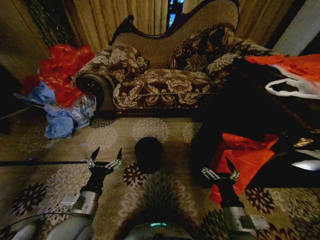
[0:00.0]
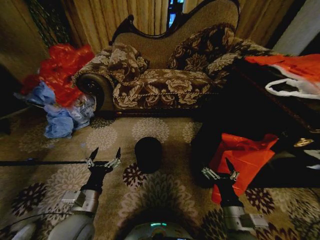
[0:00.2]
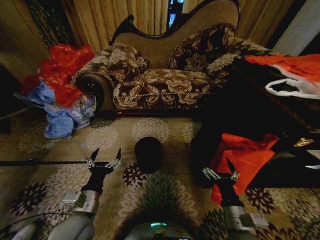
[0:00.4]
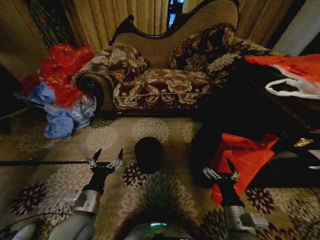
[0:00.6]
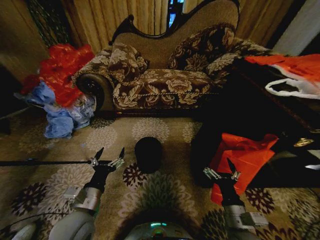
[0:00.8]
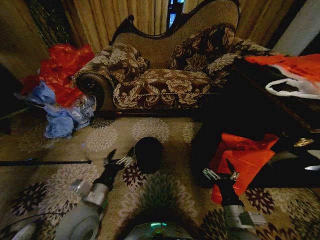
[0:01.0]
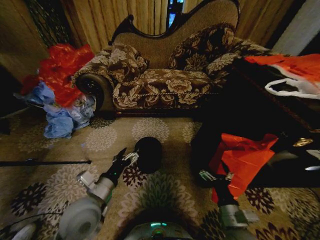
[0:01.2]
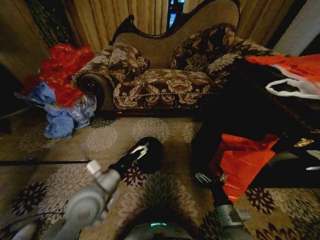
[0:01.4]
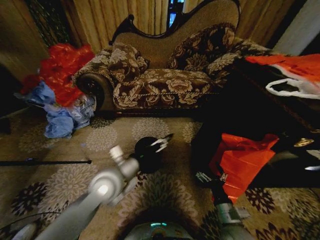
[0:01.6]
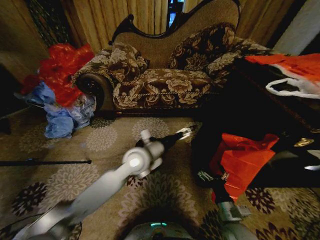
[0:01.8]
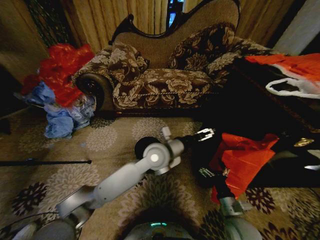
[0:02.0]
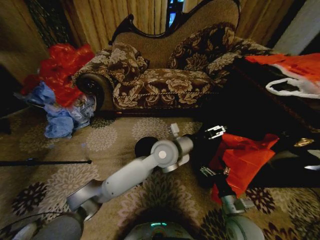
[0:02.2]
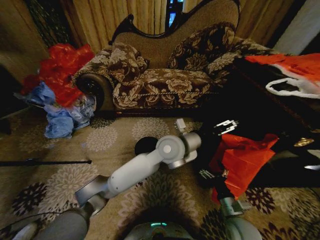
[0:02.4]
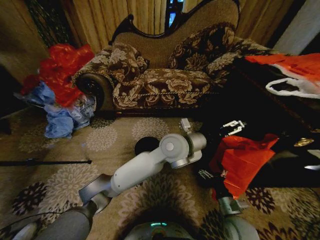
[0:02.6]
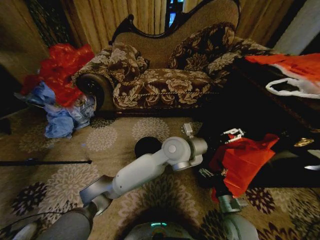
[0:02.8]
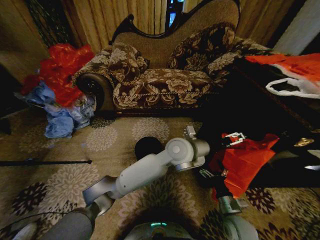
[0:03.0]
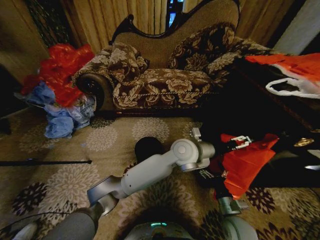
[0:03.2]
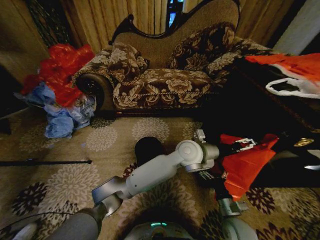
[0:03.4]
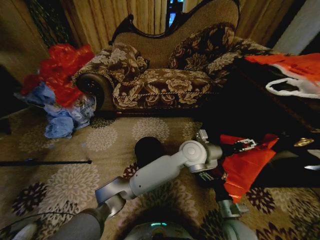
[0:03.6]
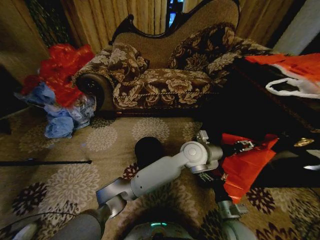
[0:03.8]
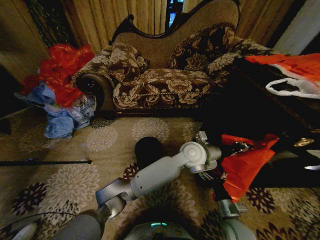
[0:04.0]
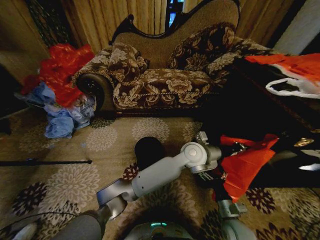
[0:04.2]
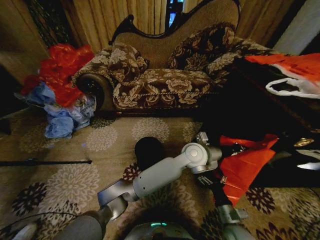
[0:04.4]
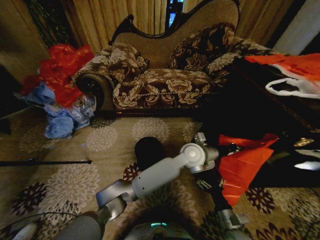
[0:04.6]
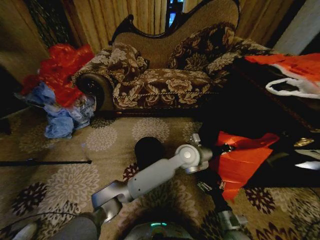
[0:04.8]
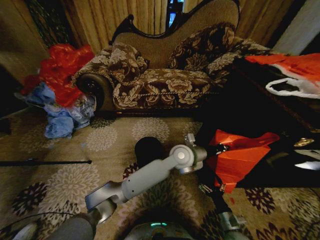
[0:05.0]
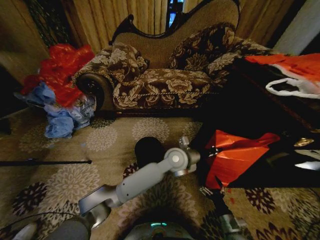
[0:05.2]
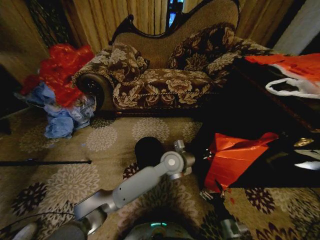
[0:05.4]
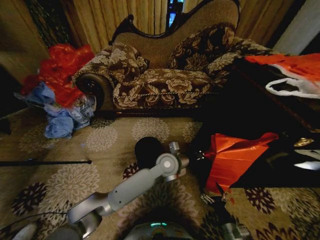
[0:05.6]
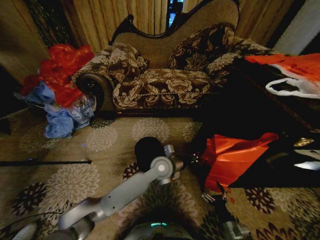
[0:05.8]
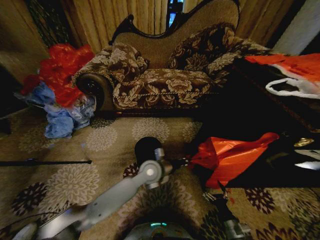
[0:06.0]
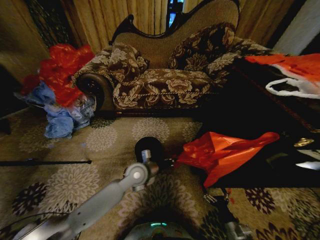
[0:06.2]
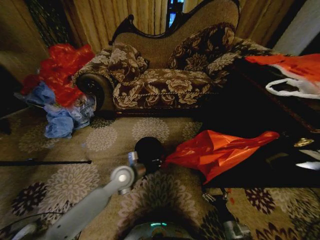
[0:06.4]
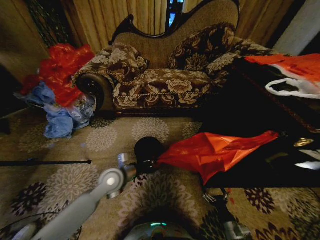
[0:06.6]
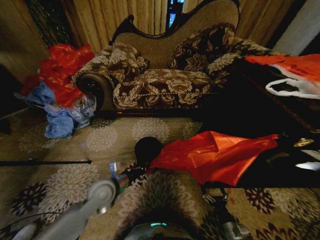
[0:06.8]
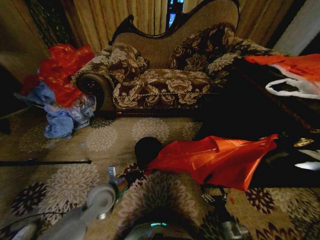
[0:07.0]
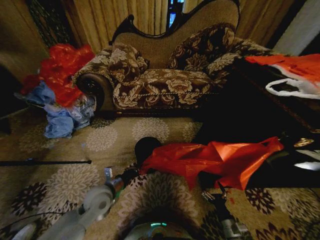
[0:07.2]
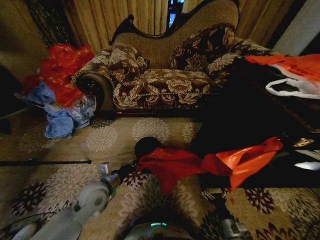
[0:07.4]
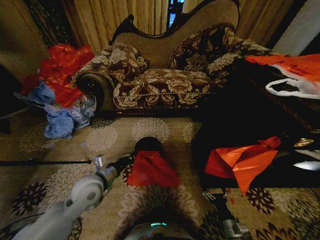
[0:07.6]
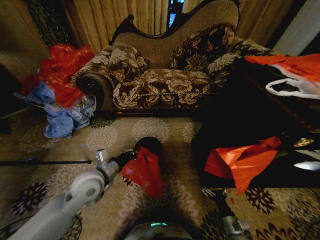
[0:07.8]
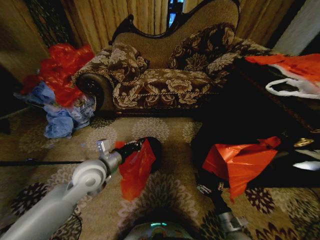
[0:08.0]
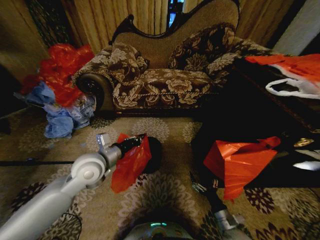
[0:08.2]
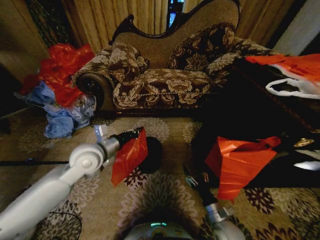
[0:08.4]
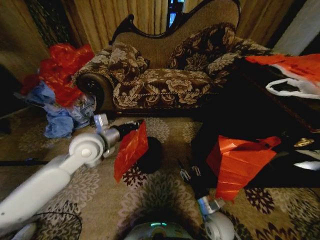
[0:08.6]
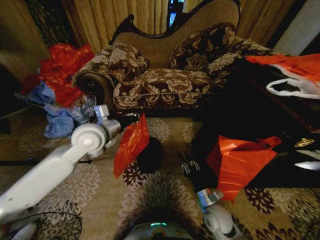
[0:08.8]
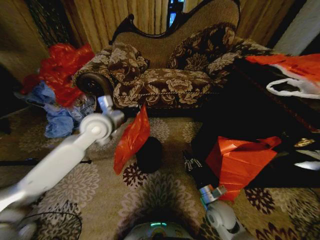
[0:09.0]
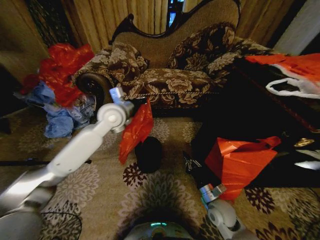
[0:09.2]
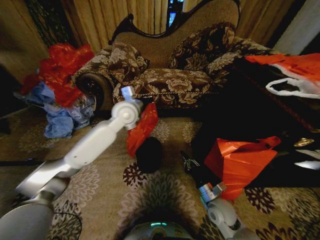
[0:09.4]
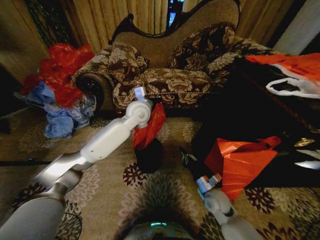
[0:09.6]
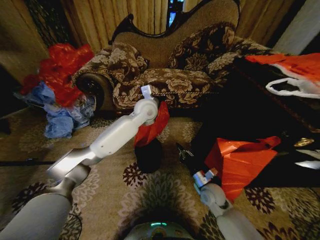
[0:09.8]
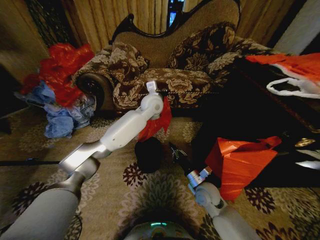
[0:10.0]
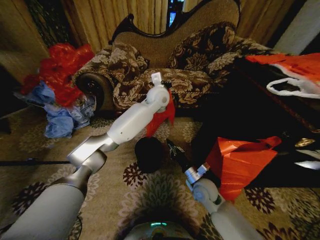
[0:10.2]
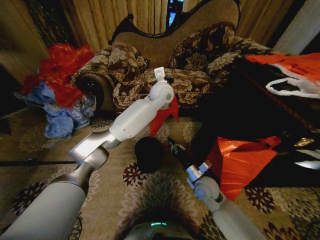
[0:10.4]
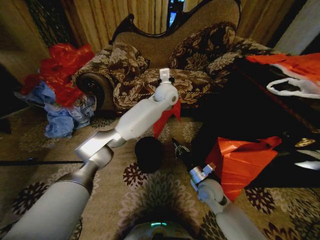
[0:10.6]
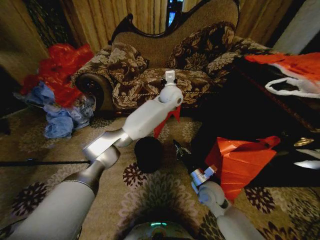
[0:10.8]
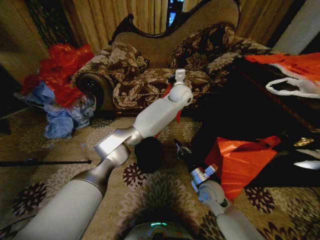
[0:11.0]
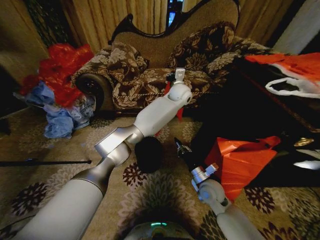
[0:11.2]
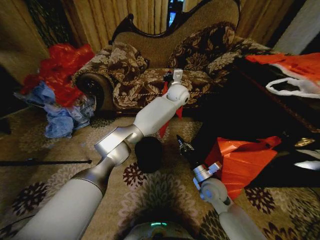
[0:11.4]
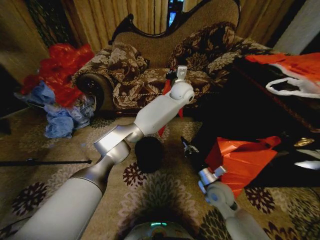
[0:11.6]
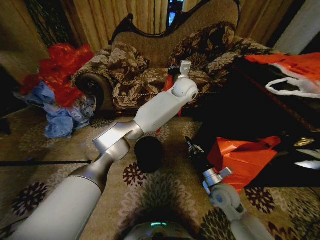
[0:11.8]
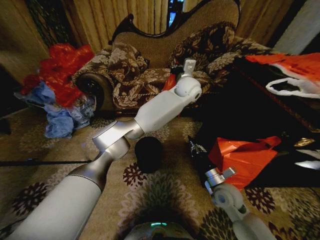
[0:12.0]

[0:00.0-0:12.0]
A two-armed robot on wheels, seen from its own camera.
Task of the whole recording: Place a garbage bag over the trash bin.
0:01.6 to 0:03.0: The left gripper travels to the right and forward by about 25 cm. Meanwhile the right gripper changes place by approximately 5 cm.
0:03.0 to 0:04.4: The left gripper goes roughly 5 cm to the right, and closes.
0:04.4 to 0:06.0: The left gripper travels to the left and downward by some 20 cm, while the right gripper heads downward and to the right, covering roughly 10 cm.
0:06.0 to 0:07.6: The left gripper goes some 20 cm to the left and backward.
0:07.6 to 0:09.0: The left gripper is displaced upward and forward by roughly 20 cm; the right gripper heads upward, forward and to the left, covering approximately 15 cm, and closes its fingers.
0:09.0 to 0:10.4: The left gripper shifts some 25 cm to the right and forward; the right gripper moves forward, approximately 10 cm.
0:10.4 to 0:12.0: The right gripper is displaced to the right by some 5 cm. Meanwhile the left gripper shifts approximately 10 cm to the right.

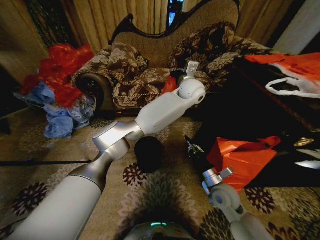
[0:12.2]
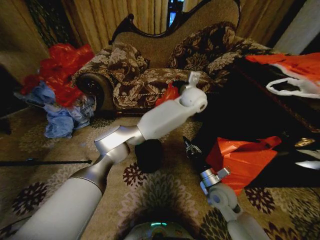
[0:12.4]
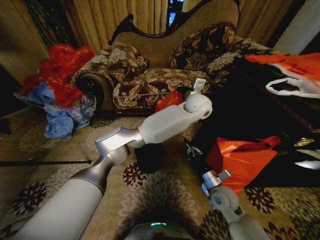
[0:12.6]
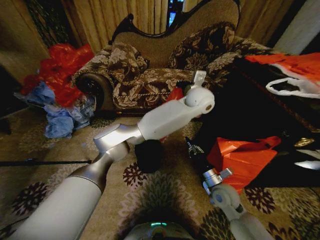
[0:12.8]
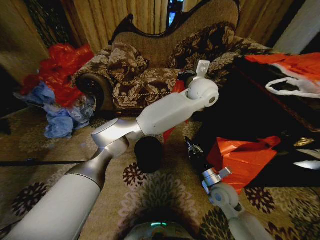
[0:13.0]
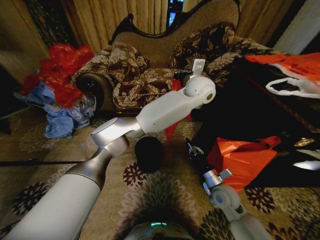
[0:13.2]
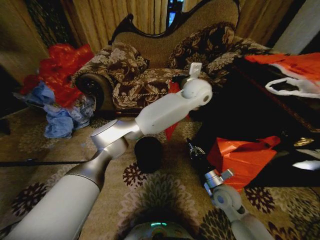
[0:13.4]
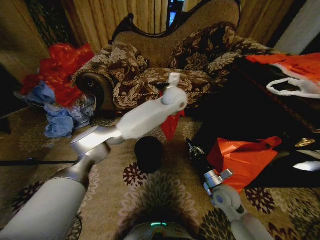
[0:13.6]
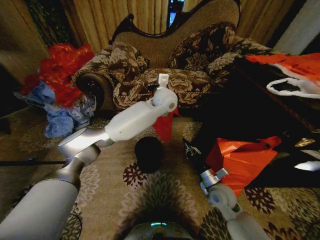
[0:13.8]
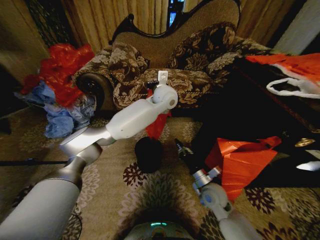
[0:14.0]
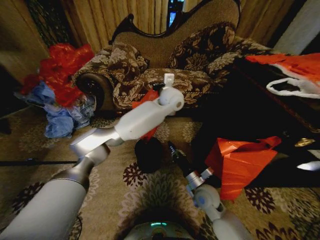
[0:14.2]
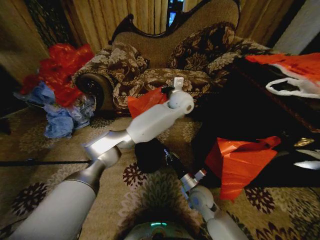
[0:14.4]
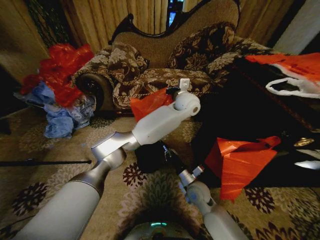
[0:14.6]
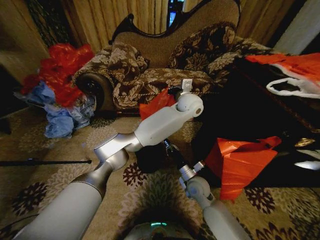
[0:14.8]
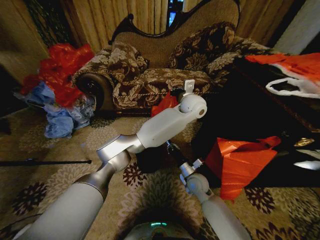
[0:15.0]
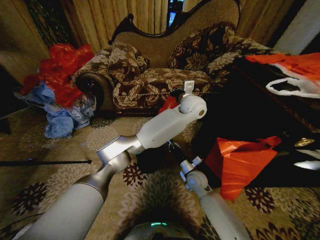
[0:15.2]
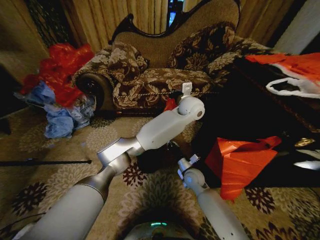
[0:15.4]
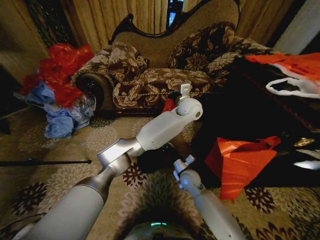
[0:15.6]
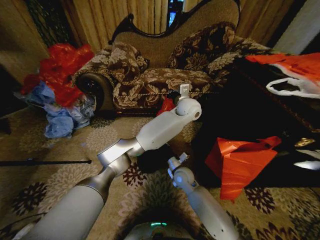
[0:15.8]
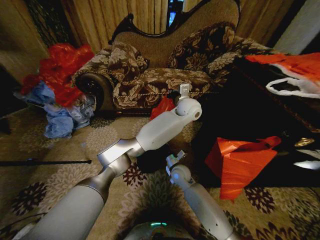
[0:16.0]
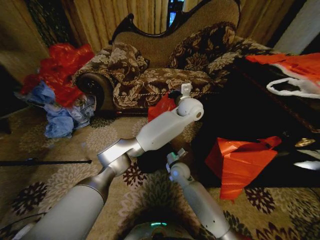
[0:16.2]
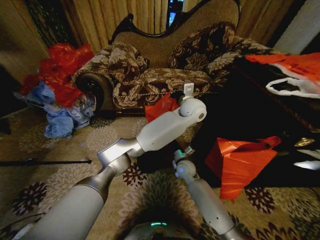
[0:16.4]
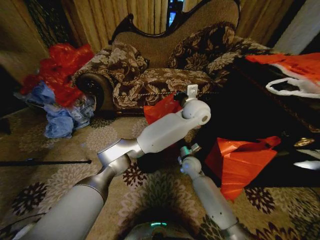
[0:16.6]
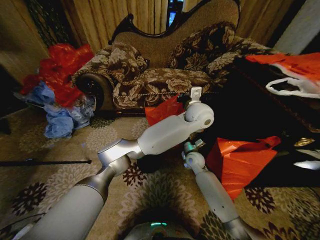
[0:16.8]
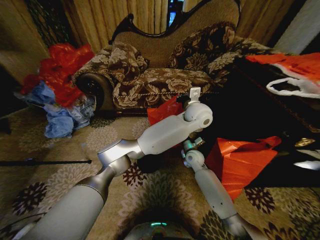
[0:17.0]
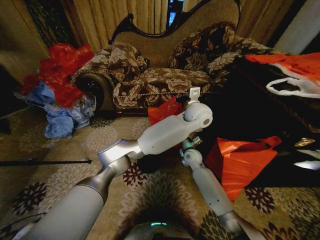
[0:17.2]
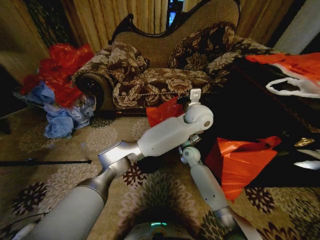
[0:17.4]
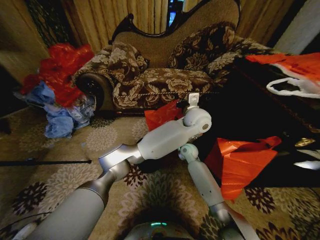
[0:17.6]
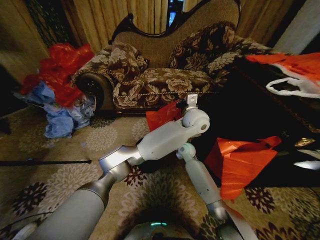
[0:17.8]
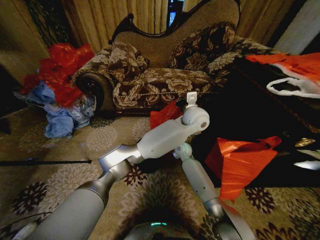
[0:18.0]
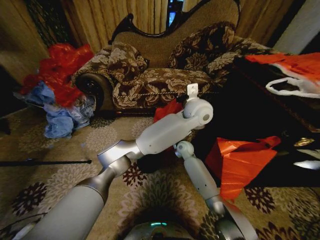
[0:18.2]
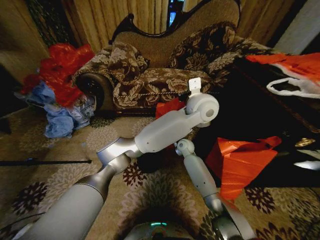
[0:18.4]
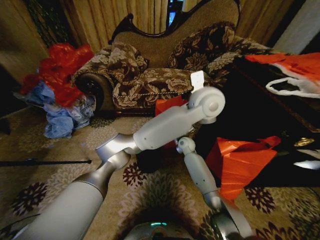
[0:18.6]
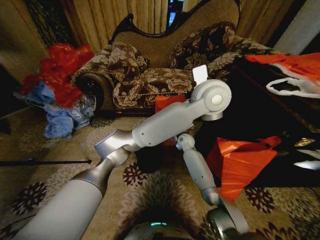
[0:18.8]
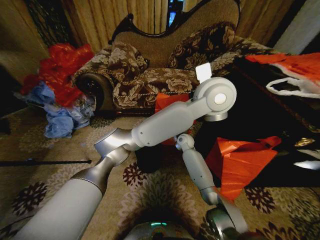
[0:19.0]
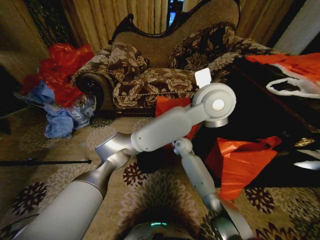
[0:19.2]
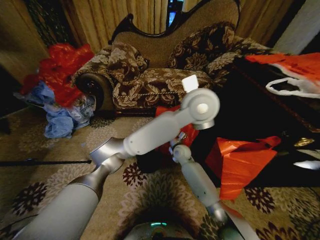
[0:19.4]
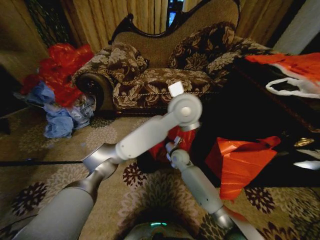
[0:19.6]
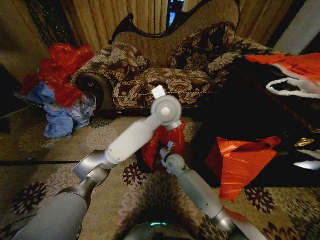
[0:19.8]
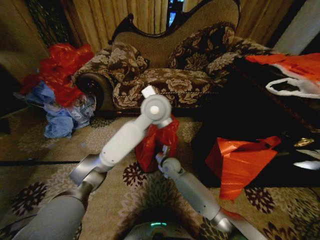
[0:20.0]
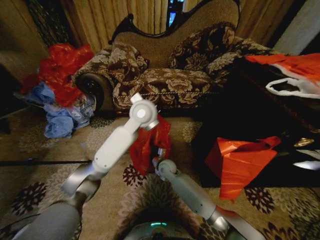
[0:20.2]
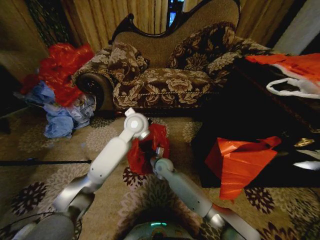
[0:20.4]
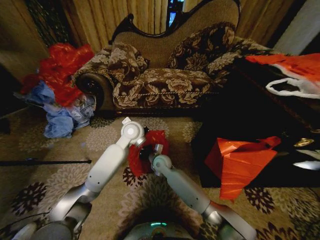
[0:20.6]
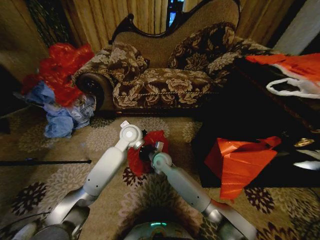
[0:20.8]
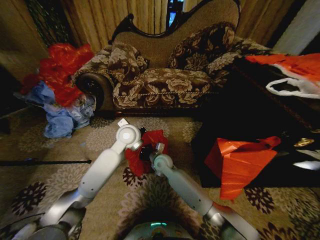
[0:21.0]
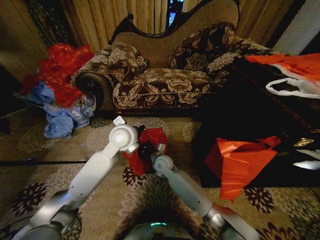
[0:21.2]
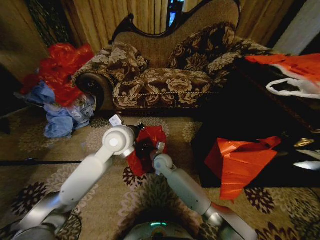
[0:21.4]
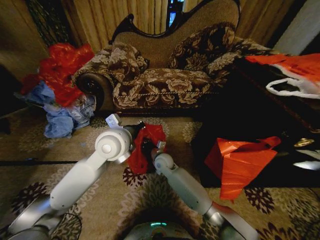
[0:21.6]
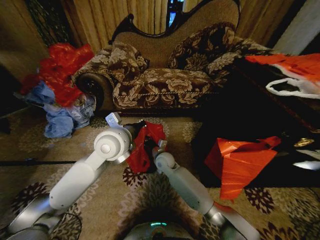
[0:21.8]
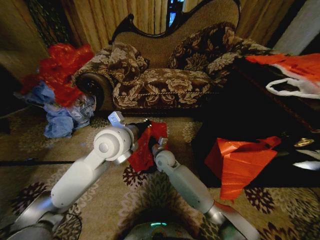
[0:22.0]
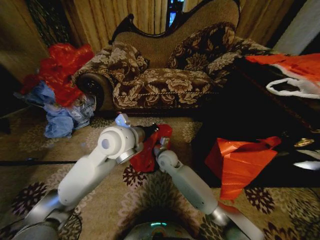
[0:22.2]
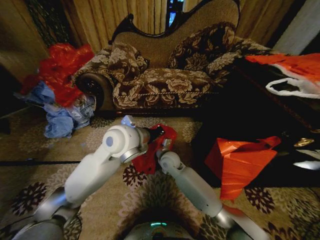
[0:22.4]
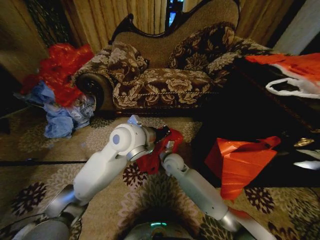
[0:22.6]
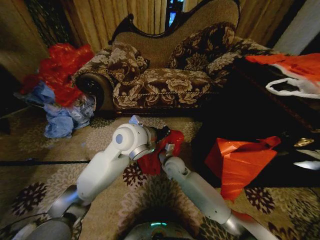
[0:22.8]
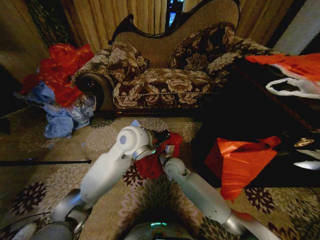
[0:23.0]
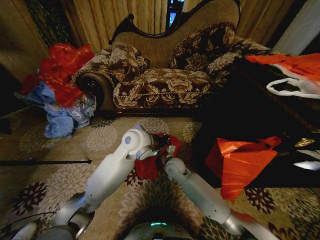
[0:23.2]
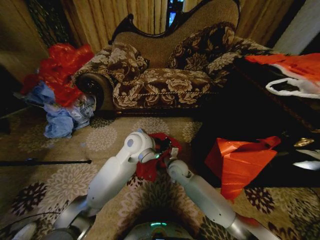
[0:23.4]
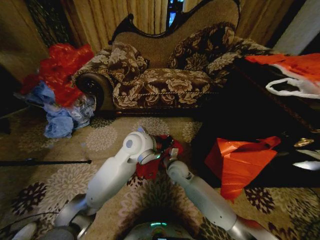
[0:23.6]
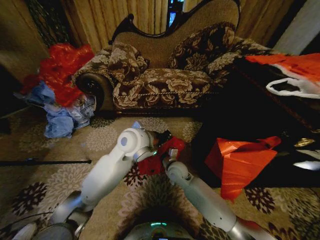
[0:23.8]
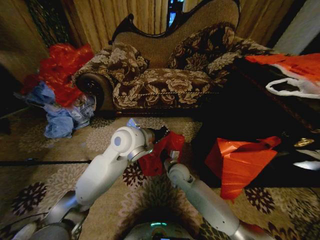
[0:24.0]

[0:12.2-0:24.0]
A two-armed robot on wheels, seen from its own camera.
Task of the whole recording: Place a garbage bag over the trash bin.
0:12.2 to 0:13.6: The left gripper goes some 5 cm to the left.
0:13.6 to 0:15.2: The left gripper heads to the right, covering about 5 cm; the right gripper shifts some 10 cm to the left and forward.
0:15.2 to 0:16.6: The right gripper shifts some 5 cm forward, and moves about 10 cm to the left and comes back.
0:16.6 to 0:18.2: The right gripper travels forward by approximately 10 cm.
0:18.2 to 0:19.6: The left gripper goes about 10 cm to the left and backward; the right gripper is displaced backward by about 5 cm.
0:19.6 to 0:21.0: The right gripper goes roughly 10 cm to the left. Meanwhile the left gripper is displaced to the left and downward by approximately 20 cm.
0:21.0 to 0:22.6: The left gripper is displaced backward and upward by about 10 cm; the right gripper moves about 5 cm, and opens up.
0:22.6 to 0:24.0: The right gripper moves approximately 5 cm.
